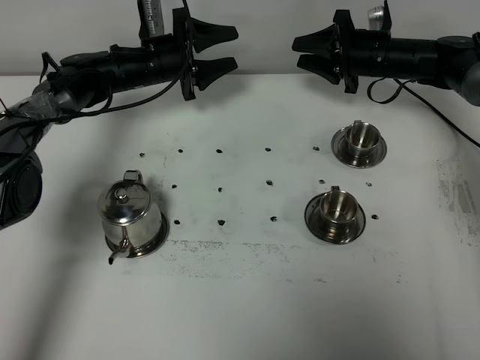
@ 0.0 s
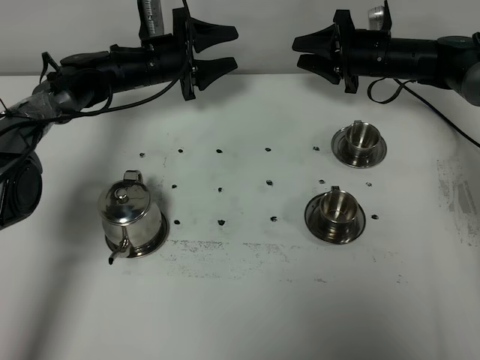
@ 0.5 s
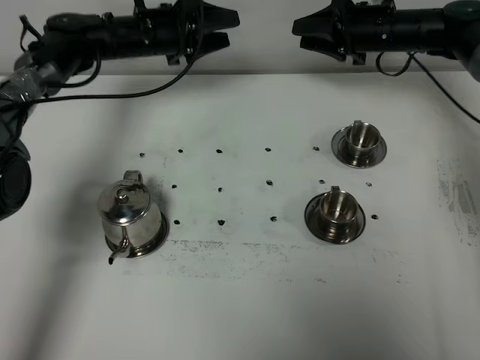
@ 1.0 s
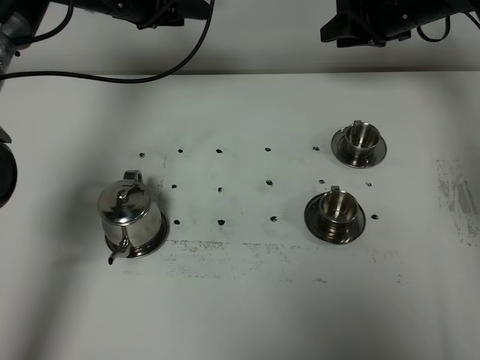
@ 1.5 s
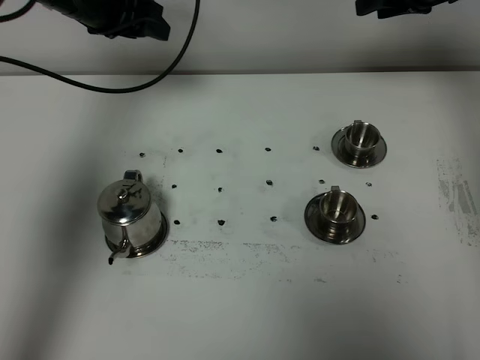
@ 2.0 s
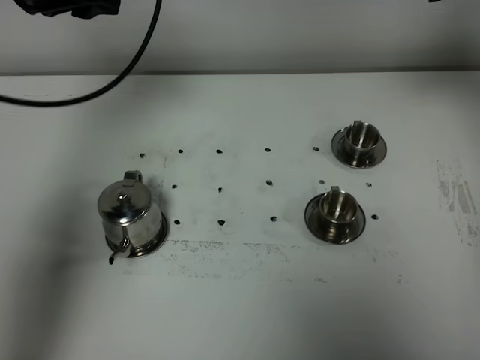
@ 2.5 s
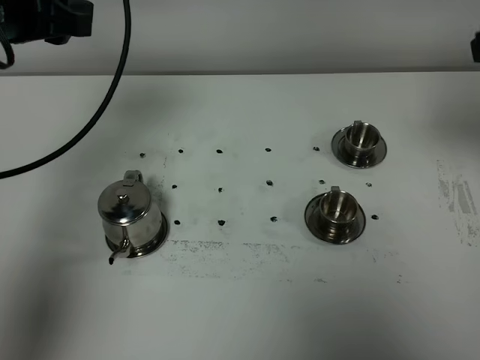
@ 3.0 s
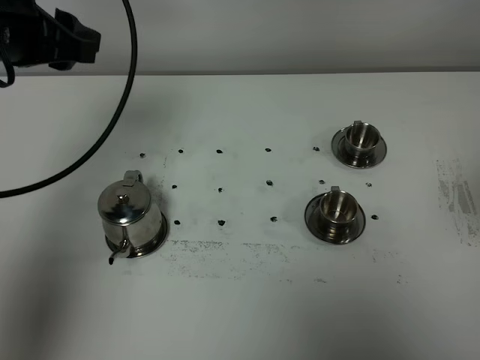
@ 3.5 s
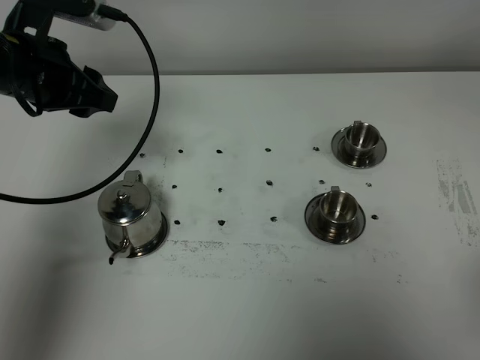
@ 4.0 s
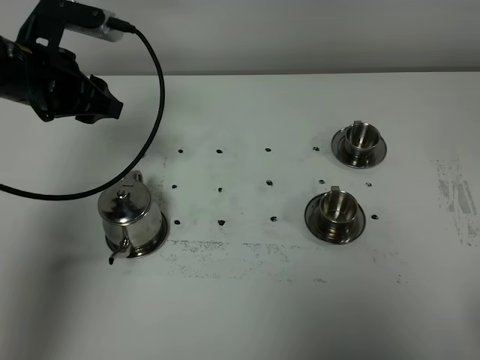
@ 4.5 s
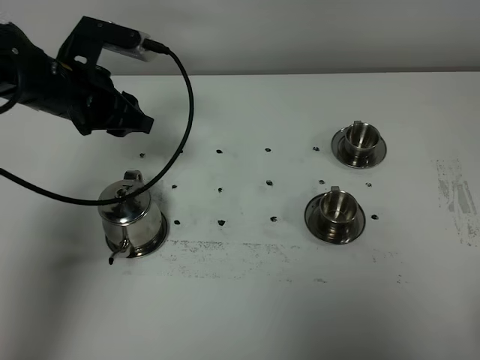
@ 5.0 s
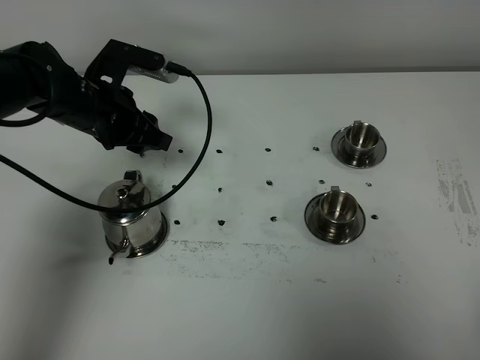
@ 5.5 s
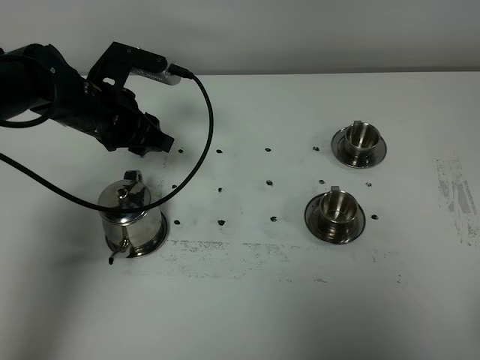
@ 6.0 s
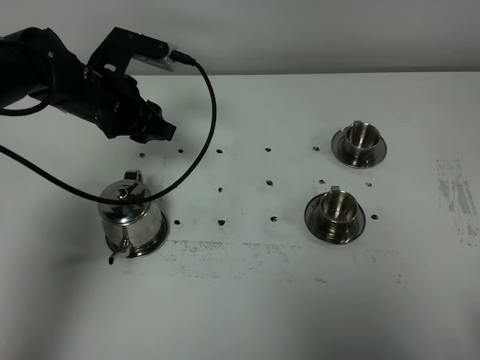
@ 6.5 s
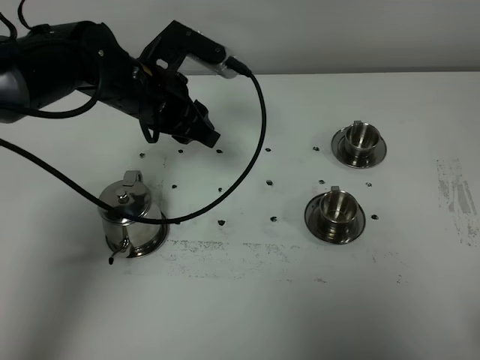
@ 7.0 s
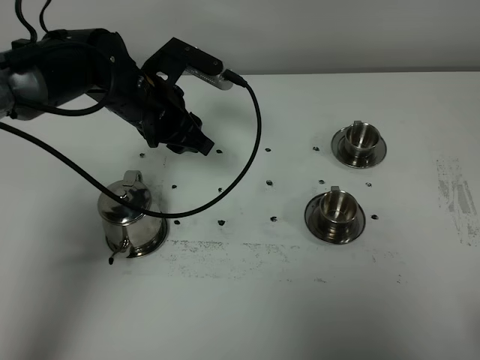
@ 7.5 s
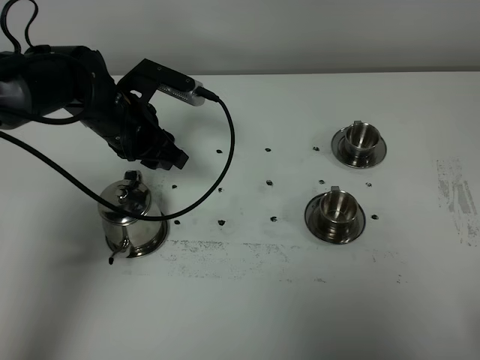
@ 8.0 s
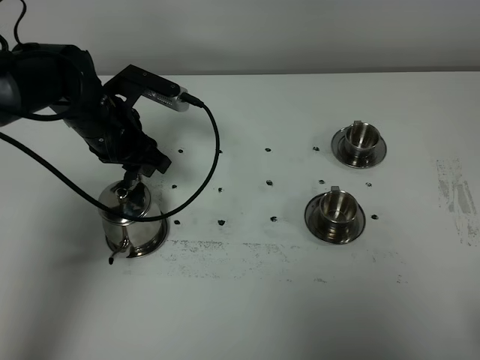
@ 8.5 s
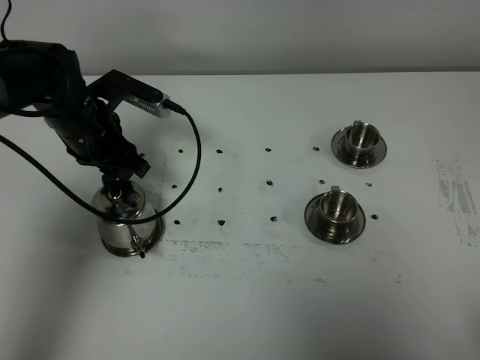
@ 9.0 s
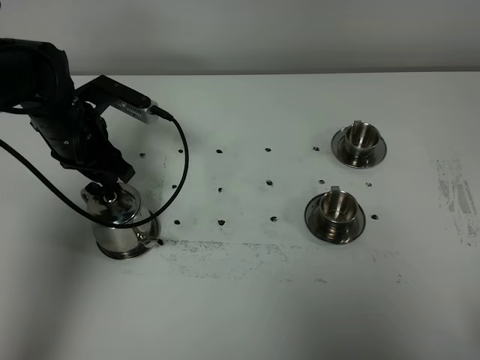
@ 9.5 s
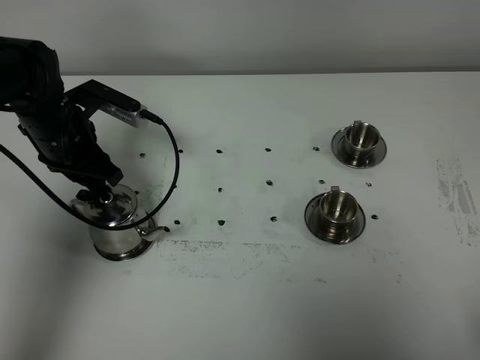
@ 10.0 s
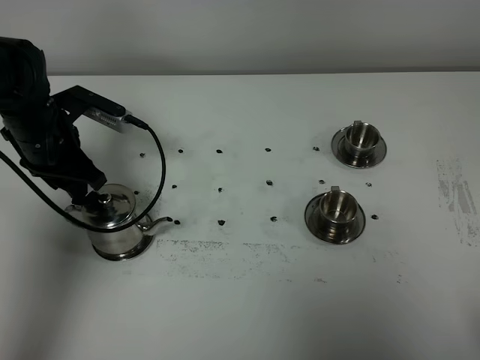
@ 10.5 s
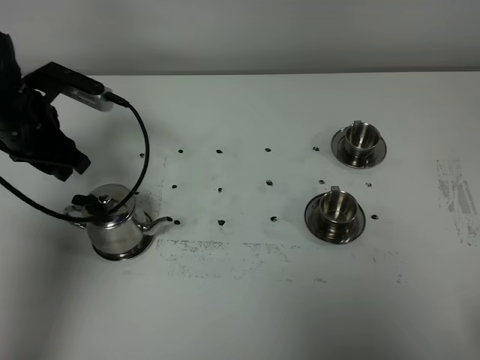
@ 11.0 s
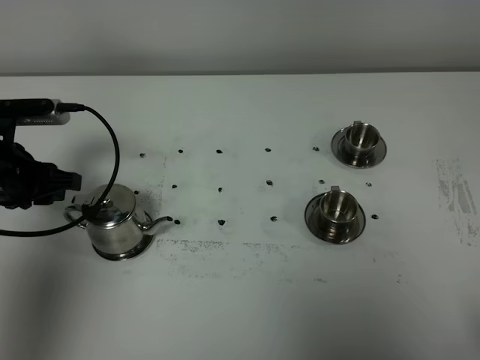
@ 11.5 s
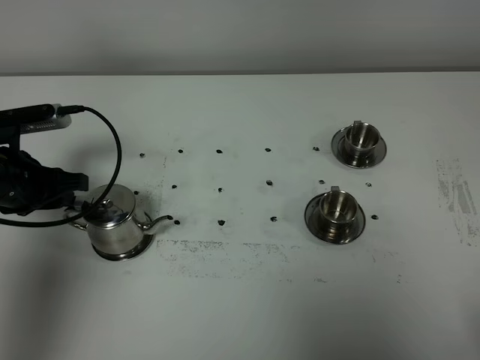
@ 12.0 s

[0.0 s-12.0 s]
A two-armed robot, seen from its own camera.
Task of the whole recording: grasp the stainless steel teapot and pour the tea into the two stainless steel teacups one by one, put the stainless steel teapot back in its original place.
0.0 to 2.0 s: Both grippers move upward, approximately 15 cm.
2.0 to 4.0 s: The left gripper goes some 15 cm backward. Meanwhile the right gripper shifts about 50 cm backward.
4.0 to 6.0 s: Both grippers travel together downward, about 10 cm.
8.0 to 10.0 s: The left gripper moves to the left, some 5 cm.
10.0 to 12.0 s: The left gripper moves backward and to the left, roughly 10 cm.

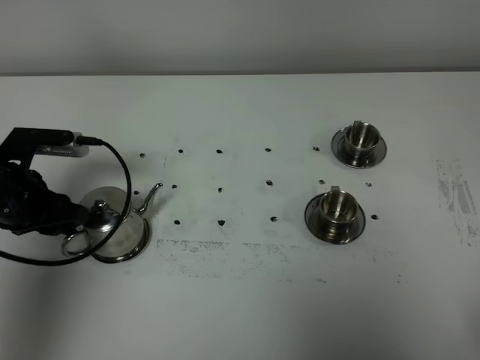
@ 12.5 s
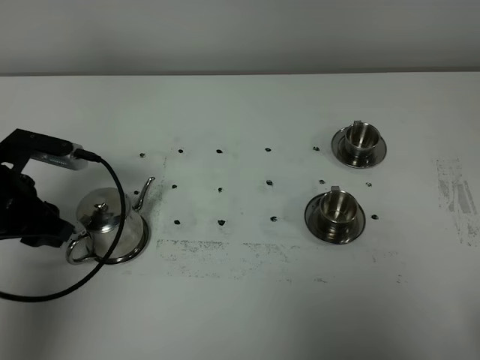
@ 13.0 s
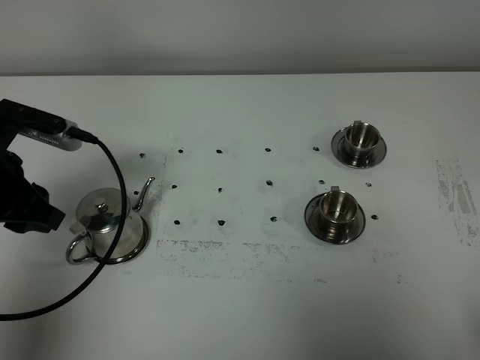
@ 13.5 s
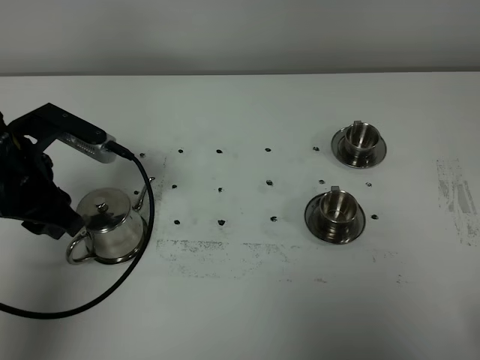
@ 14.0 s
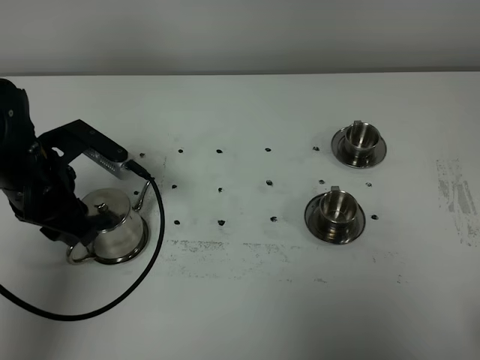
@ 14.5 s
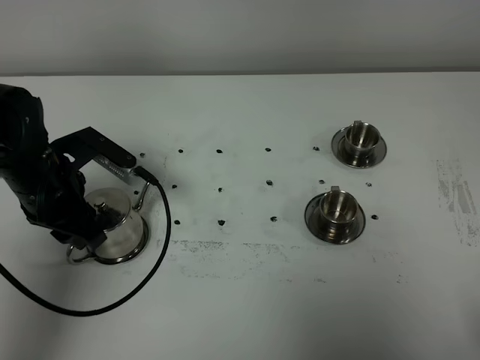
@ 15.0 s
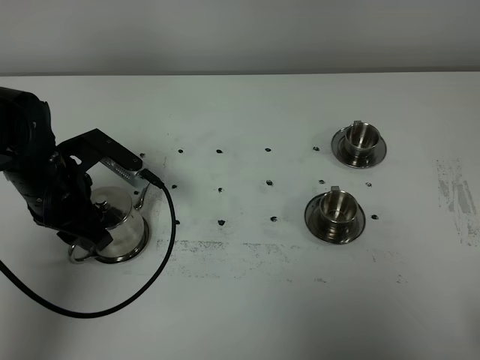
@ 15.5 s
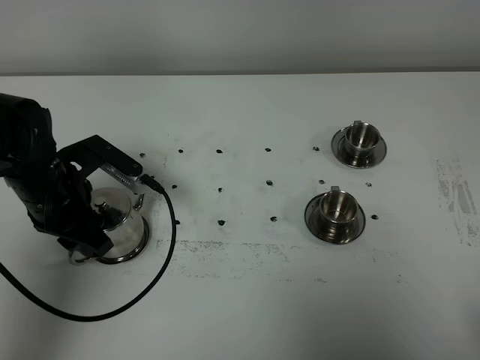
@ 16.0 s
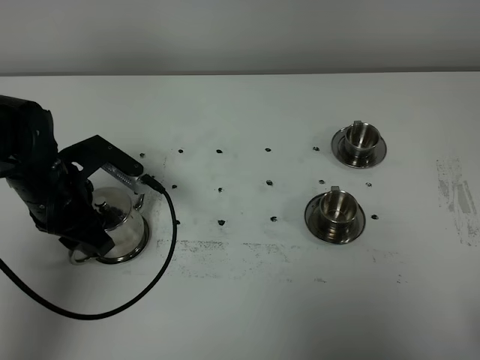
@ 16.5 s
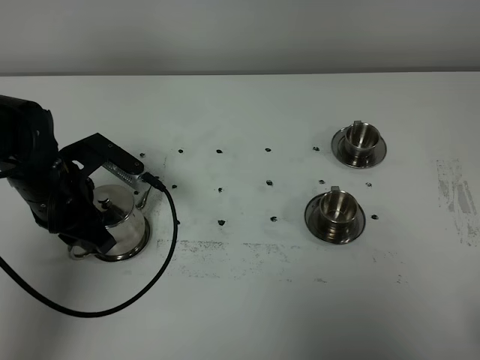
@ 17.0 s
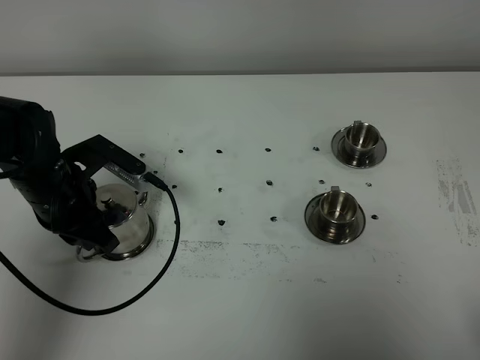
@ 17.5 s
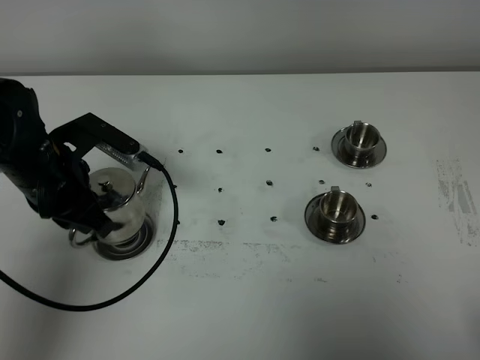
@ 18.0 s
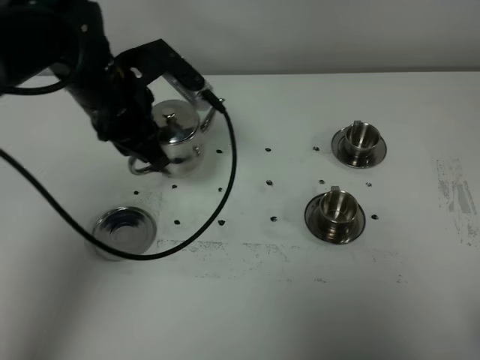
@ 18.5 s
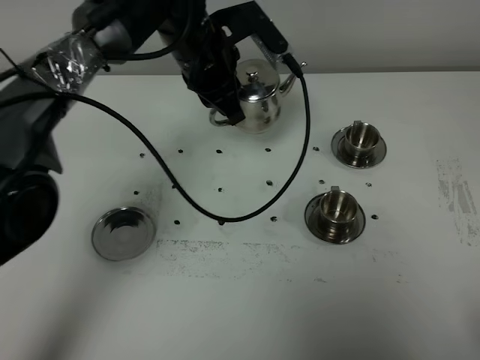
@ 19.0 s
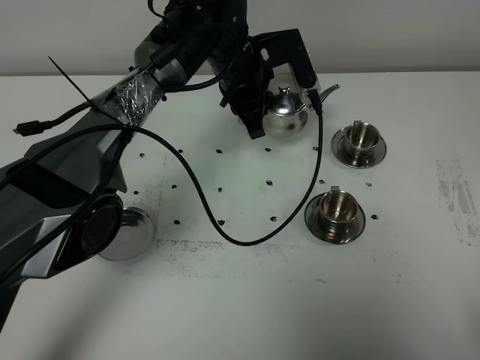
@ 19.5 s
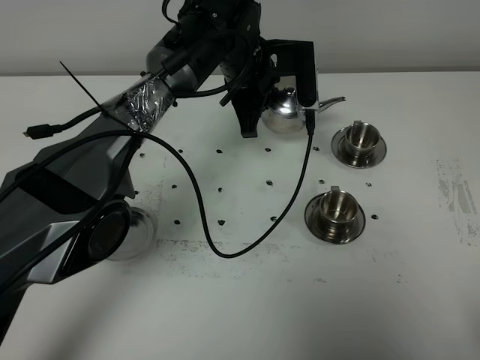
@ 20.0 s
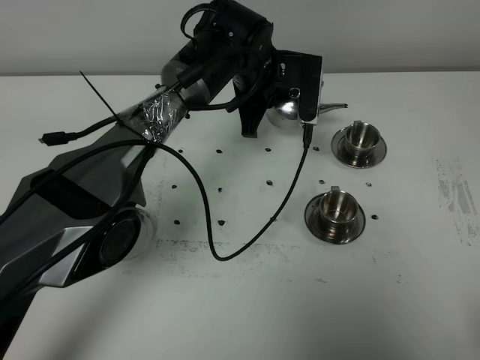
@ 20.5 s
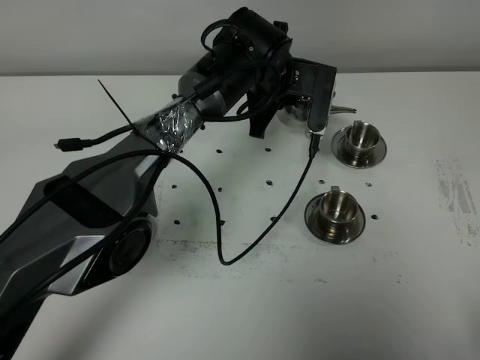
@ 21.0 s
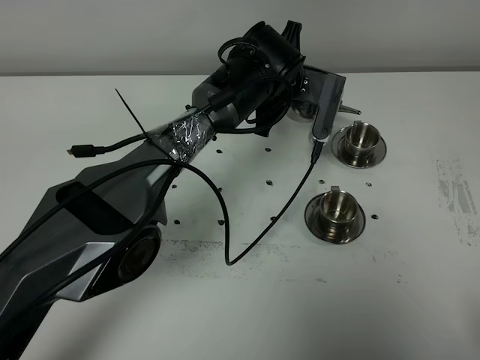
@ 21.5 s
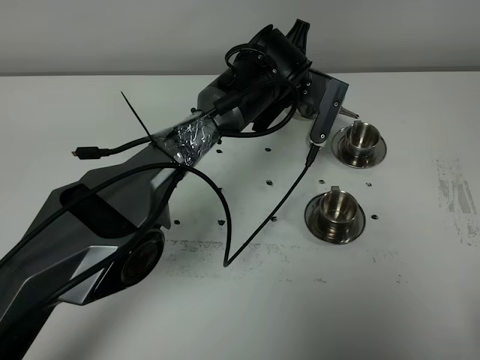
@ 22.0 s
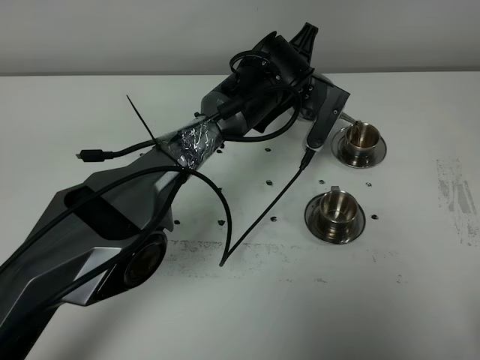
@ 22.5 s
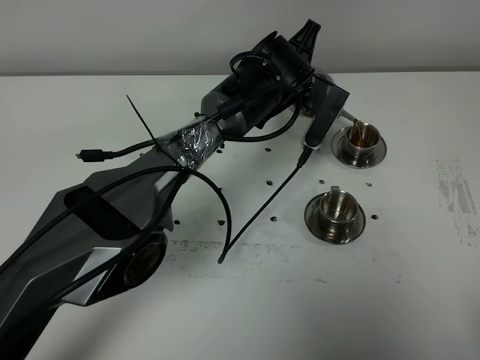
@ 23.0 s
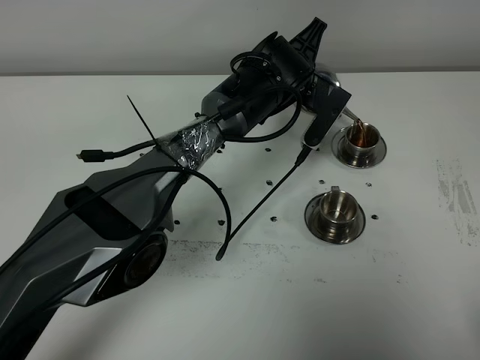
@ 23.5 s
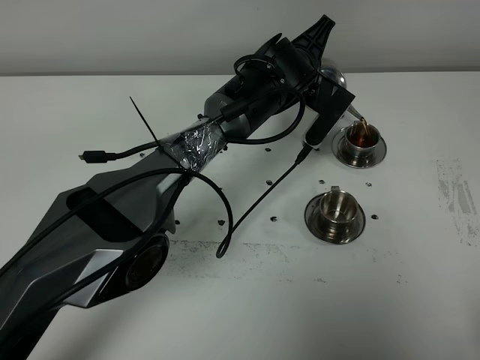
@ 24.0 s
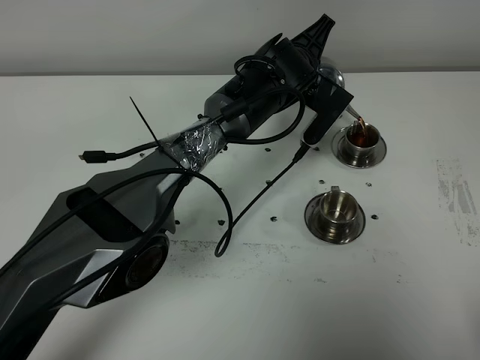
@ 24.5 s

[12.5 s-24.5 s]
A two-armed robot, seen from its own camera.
Task of the whole recording: grasp the stainless steel teapot and pour the tea into the two stainless steel teacups one by one, put the stainless steel teapot back in its original place.
Step, 12.5 to 17.5 s: Pick up the teapot with the left gripper.
12.5 to 14.5 s: The left gripper is displaced to the right by some 5 cm.
14.5 to 16.5 s: The grippers stay close to where they were, moving slightly.
16.5 to 18.5 s: The left gripper goes roughly 15 cm upward, to the right and forward, and closes up.
18.5 to 20.5 s: The left gripper shifts about 20 cm to the right and forward.
22.5 to 24.5 s: The grippers make only small movements.

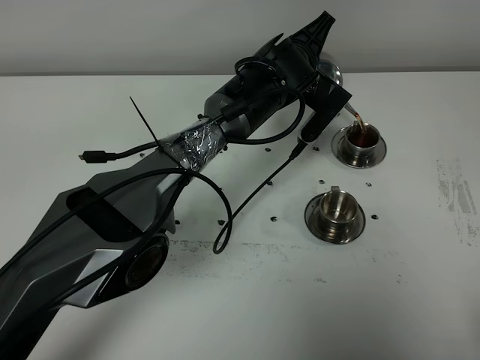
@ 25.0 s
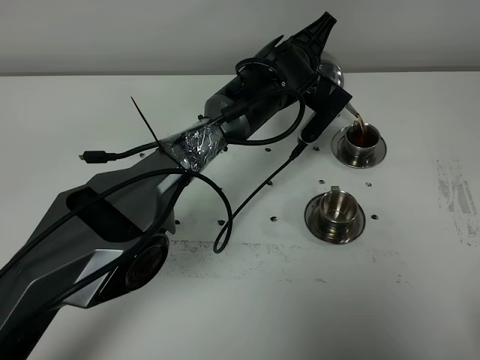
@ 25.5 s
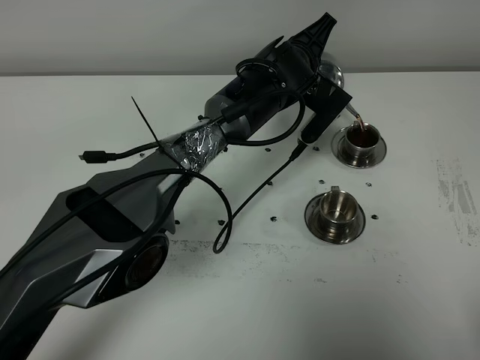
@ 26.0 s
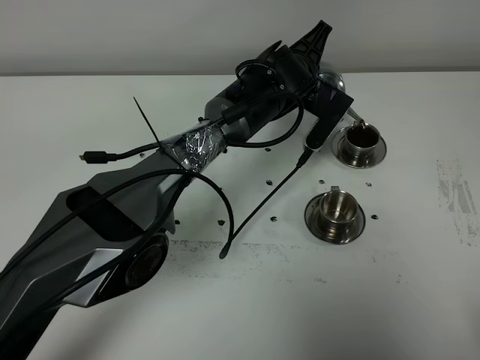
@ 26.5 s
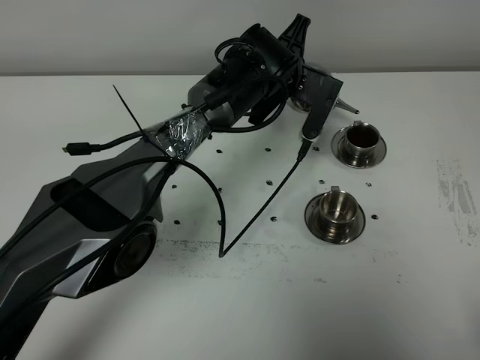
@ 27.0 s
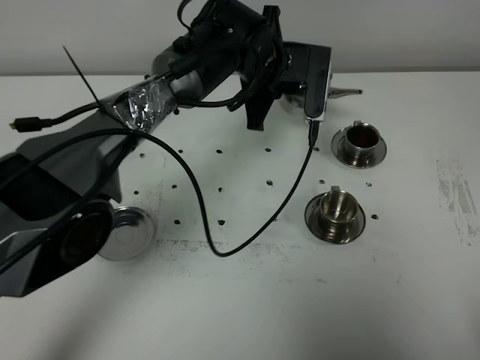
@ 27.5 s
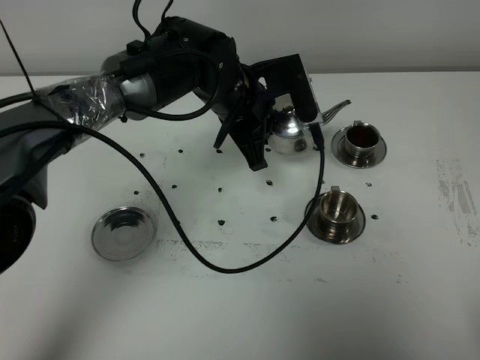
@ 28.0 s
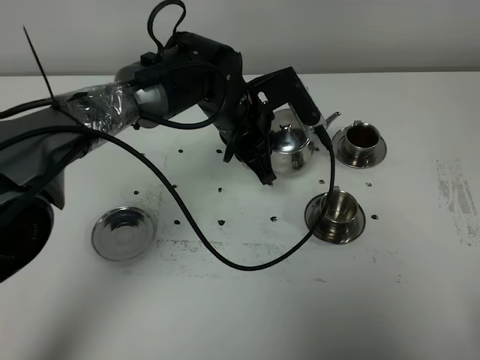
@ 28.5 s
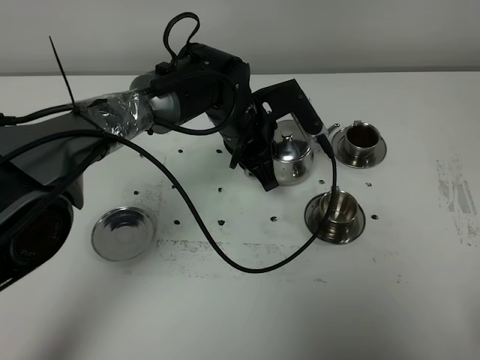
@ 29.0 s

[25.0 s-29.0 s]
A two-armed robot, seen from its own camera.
Task of the whole recording: grasp the stainless steel teapot and pour the tea into the two stainless steel teacups one by one, put the stainless steel teapot back in its original place.
25.0 to 27.0 s: The grippers stay close to where they were, moving slightly.
27.0 to 29.0 s: The left gripper shifts some 5 cm backward.
